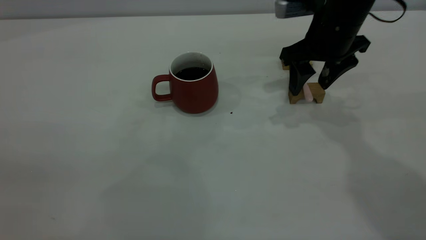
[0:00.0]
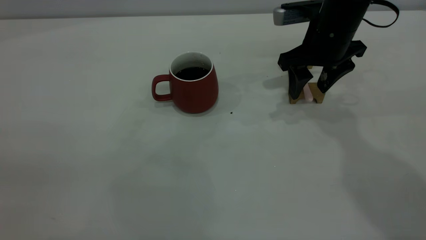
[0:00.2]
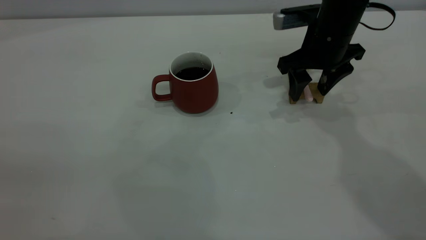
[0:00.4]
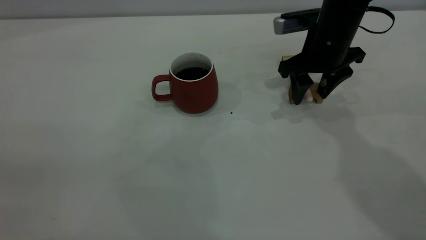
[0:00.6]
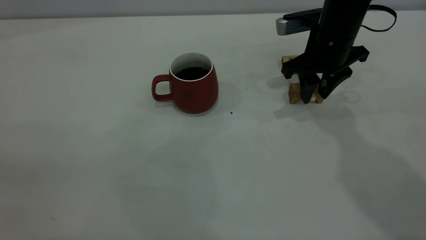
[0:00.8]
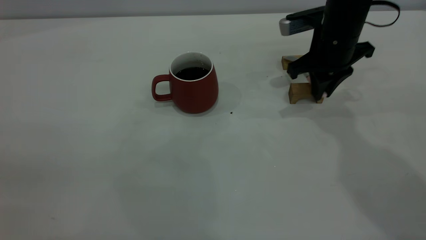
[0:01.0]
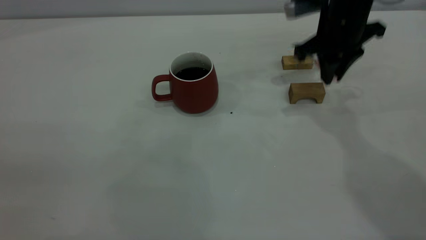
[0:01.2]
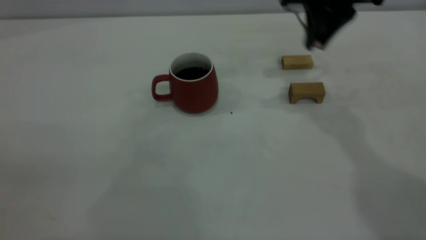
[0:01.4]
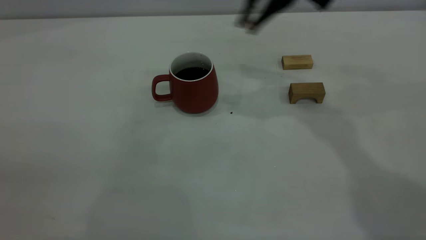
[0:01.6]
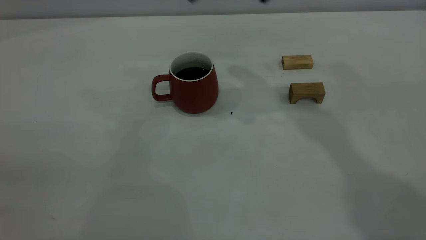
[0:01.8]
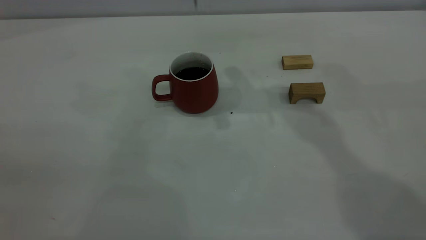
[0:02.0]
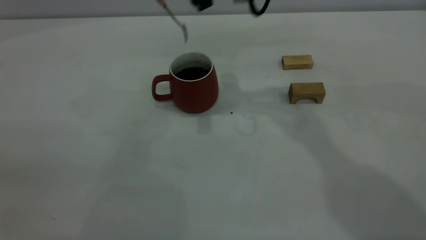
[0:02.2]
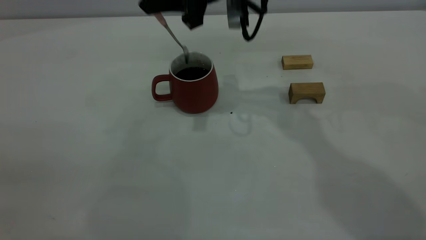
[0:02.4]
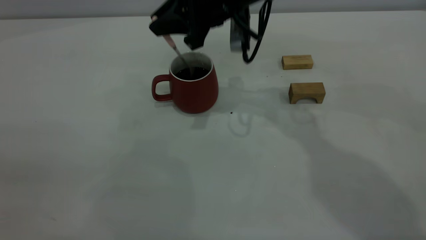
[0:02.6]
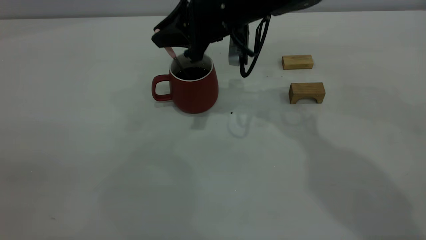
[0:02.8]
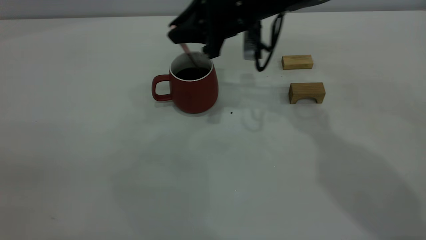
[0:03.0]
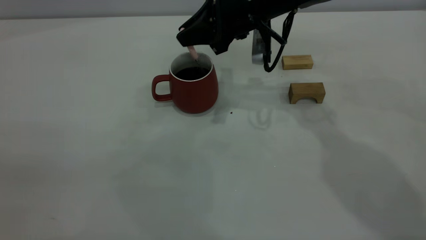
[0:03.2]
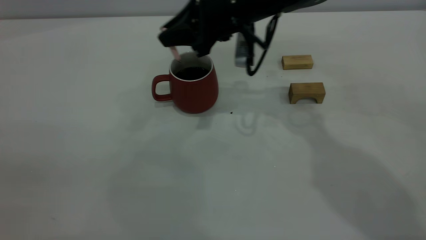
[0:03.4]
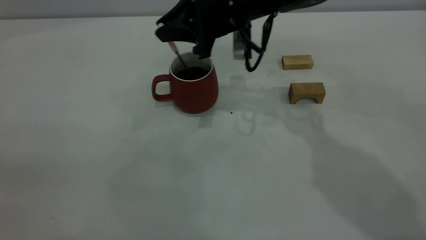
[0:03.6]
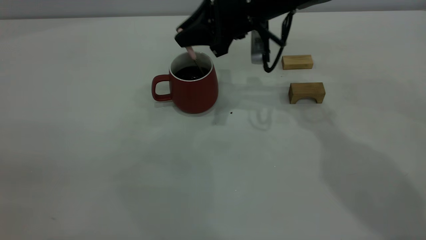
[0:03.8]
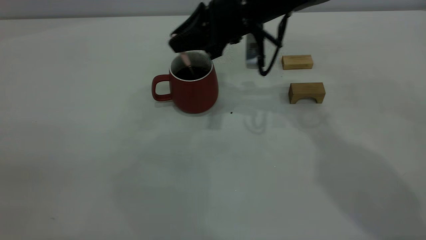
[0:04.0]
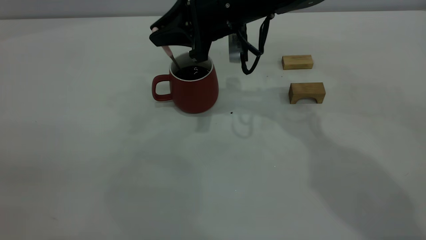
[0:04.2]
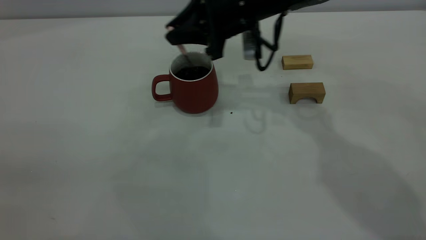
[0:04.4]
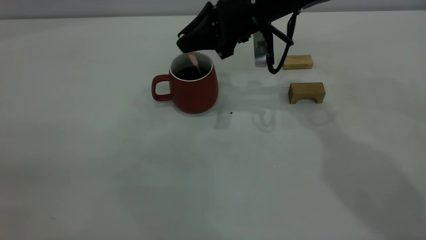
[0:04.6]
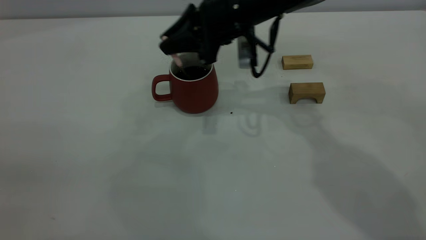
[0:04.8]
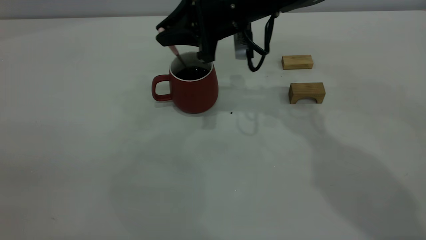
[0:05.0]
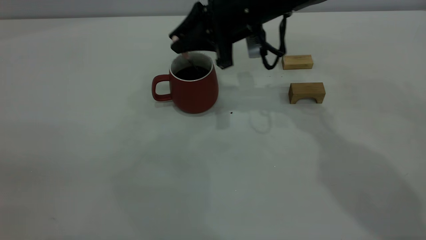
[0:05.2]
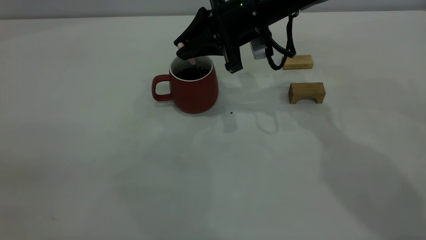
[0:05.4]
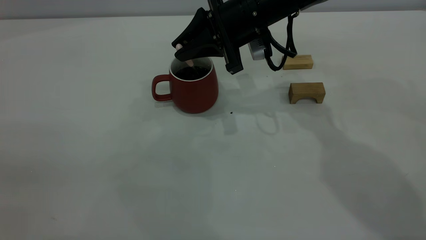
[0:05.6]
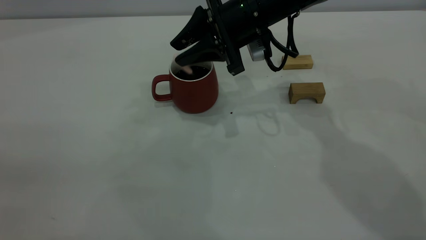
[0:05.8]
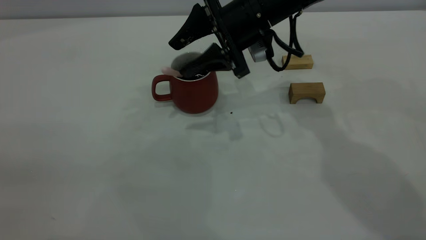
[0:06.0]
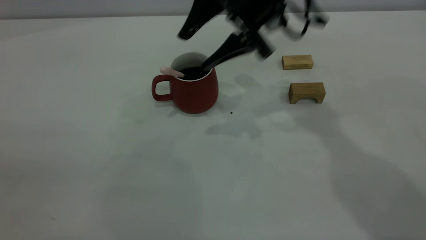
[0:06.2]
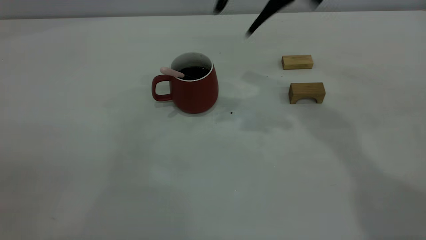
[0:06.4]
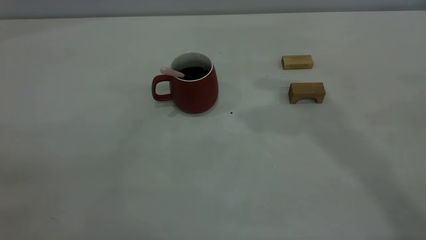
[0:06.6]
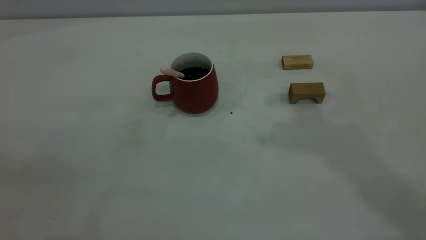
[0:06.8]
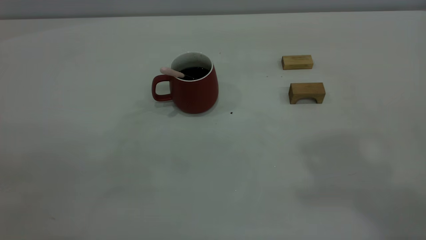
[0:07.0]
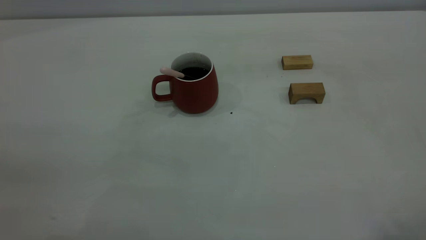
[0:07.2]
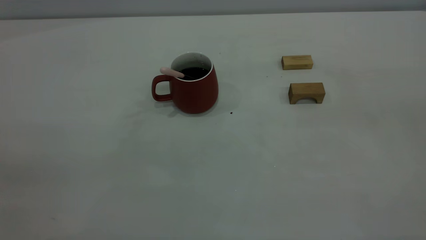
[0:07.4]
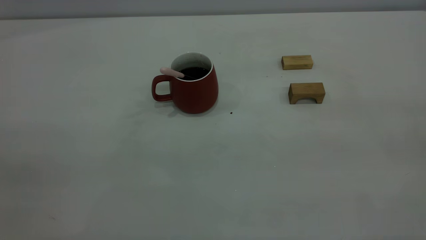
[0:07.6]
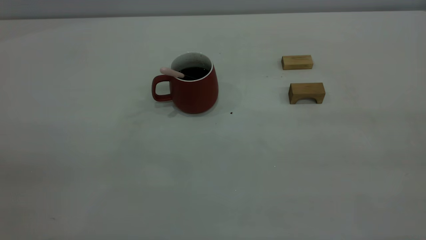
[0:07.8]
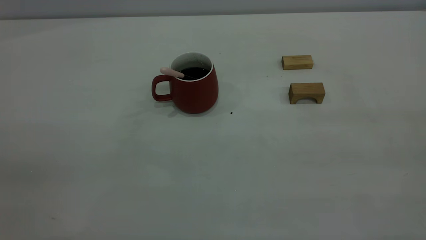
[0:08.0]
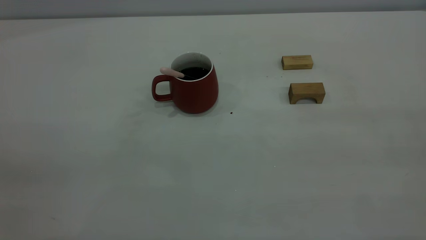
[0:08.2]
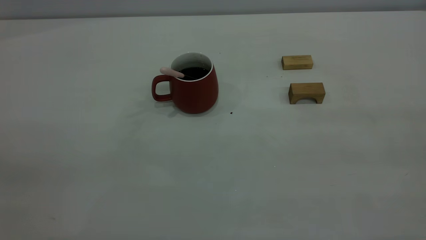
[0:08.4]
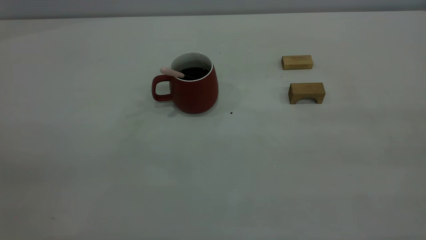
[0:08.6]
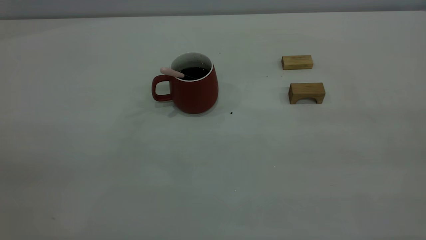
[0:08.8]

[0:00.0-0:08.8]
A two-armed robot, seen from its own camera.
Step, 1.2 to 6.2 s: Stir the coffee in the cup.
0.0 to 1.4 s: The right gripper goes some 10 cm upward, and closes up.
1.4 to 3.0 s: The right gripper is displaced to the left and downward by roughly 10 cm.
3.0 to 4.4 s: The grippers make only small movements.
4.4 to 5.8 s: The right gripper opens.
5.8 to 7.4 s: The right gripper heads backward, upward and to the right, covering approximately 50 cm, and opens and closes again.

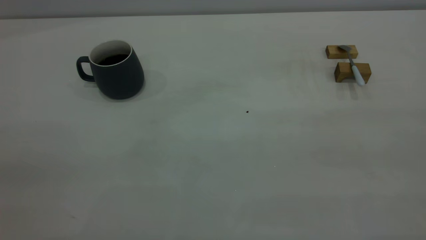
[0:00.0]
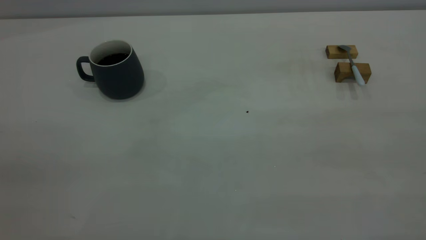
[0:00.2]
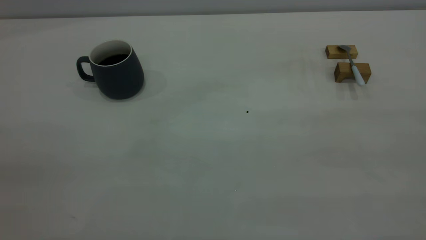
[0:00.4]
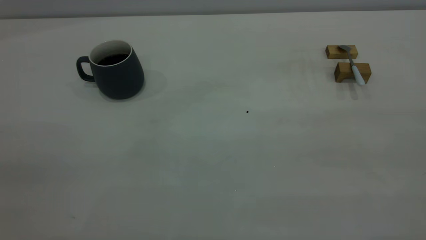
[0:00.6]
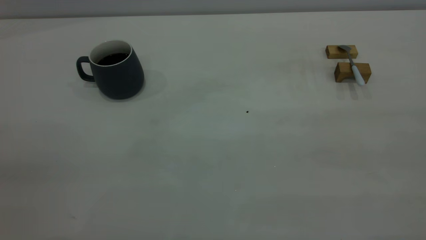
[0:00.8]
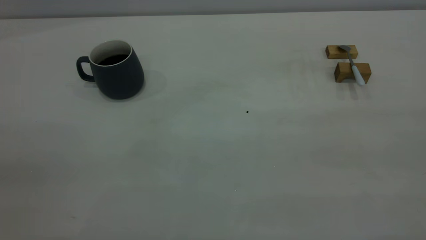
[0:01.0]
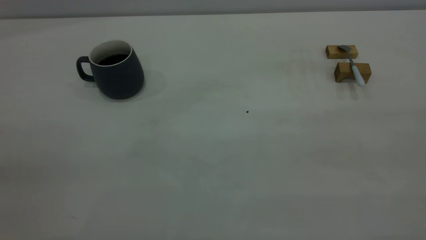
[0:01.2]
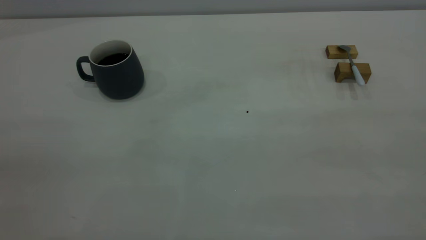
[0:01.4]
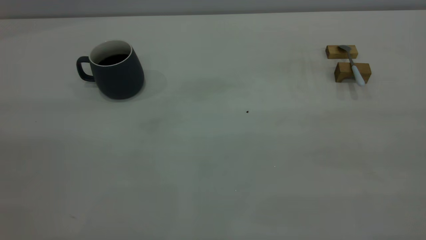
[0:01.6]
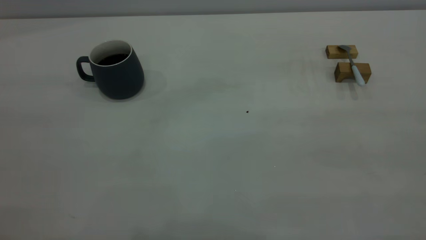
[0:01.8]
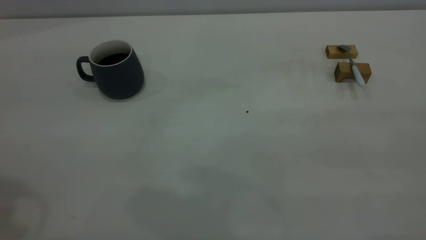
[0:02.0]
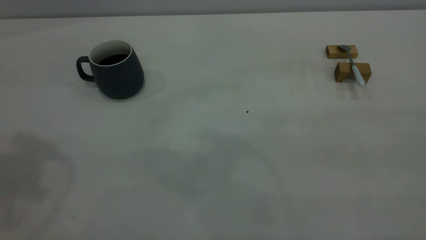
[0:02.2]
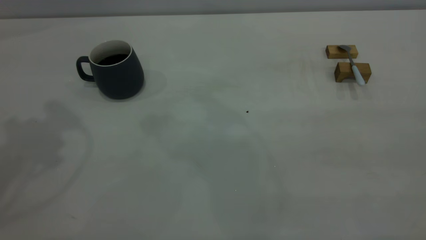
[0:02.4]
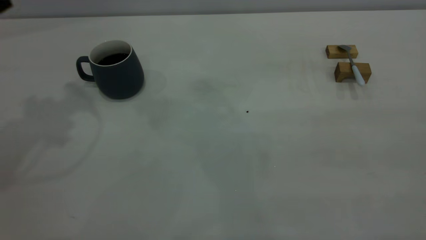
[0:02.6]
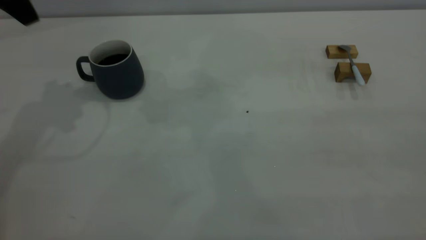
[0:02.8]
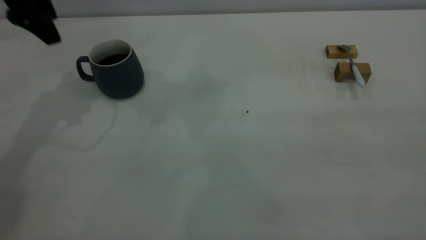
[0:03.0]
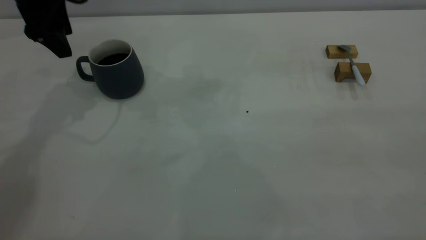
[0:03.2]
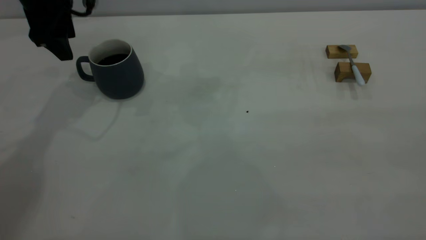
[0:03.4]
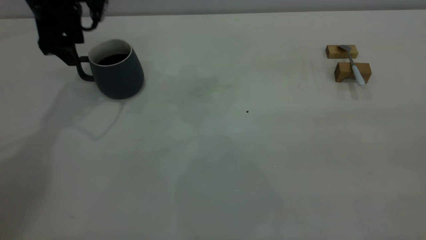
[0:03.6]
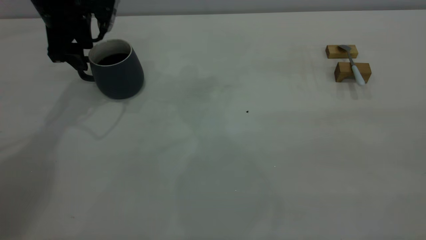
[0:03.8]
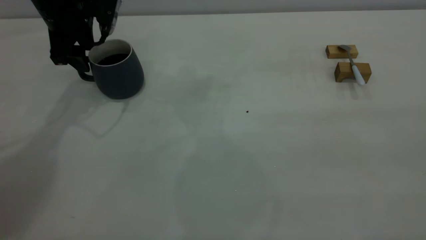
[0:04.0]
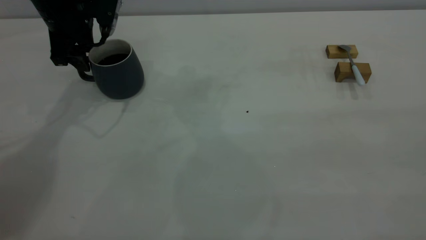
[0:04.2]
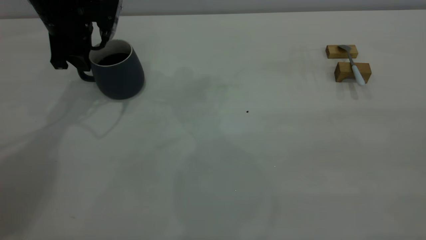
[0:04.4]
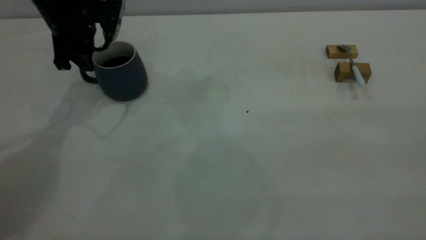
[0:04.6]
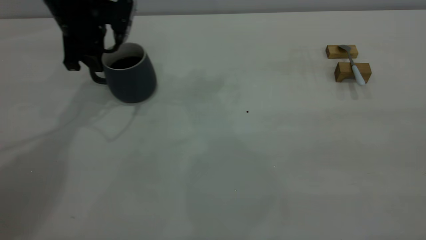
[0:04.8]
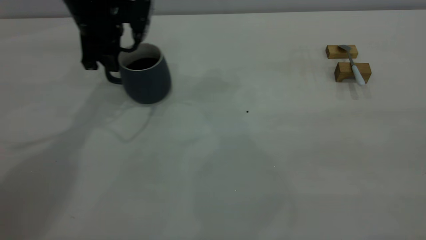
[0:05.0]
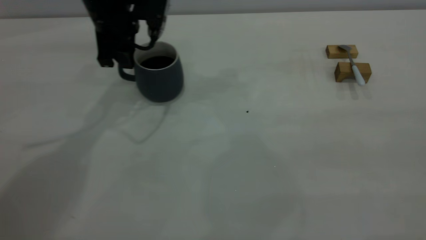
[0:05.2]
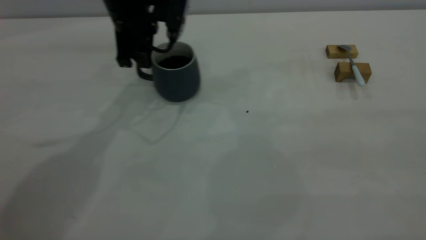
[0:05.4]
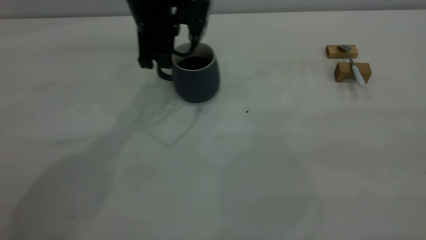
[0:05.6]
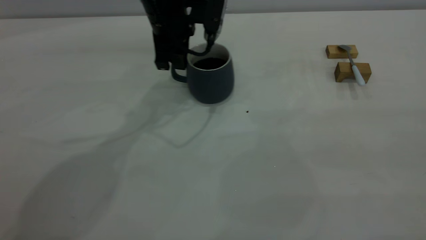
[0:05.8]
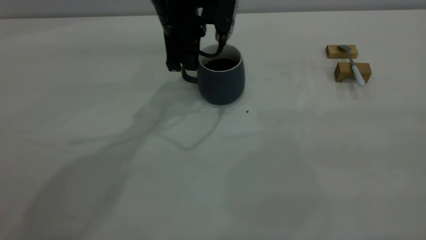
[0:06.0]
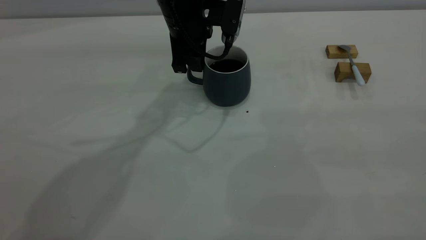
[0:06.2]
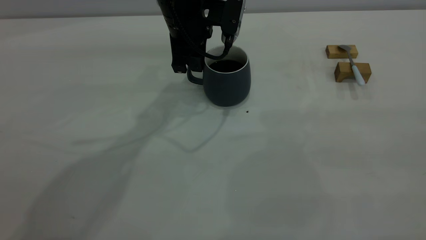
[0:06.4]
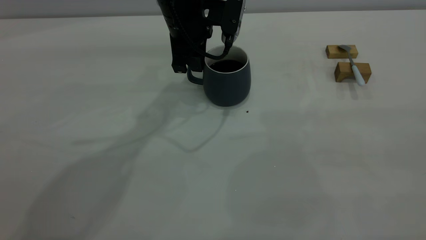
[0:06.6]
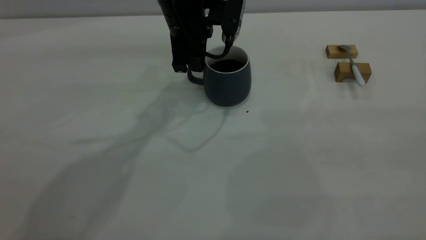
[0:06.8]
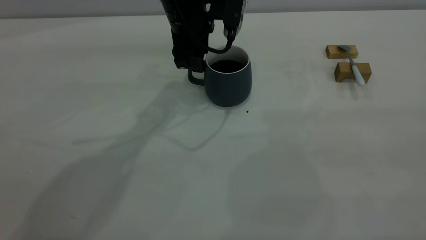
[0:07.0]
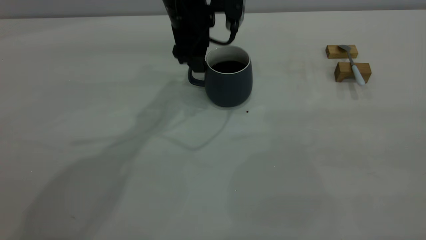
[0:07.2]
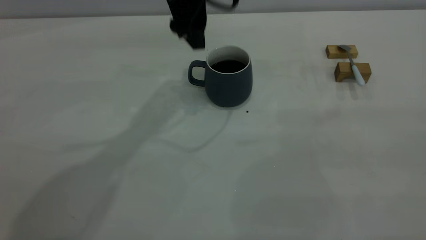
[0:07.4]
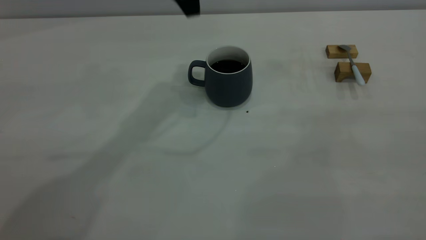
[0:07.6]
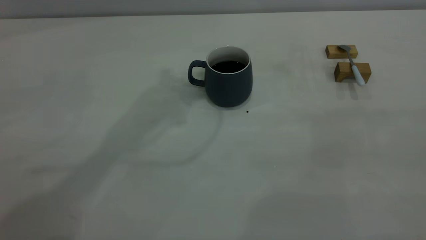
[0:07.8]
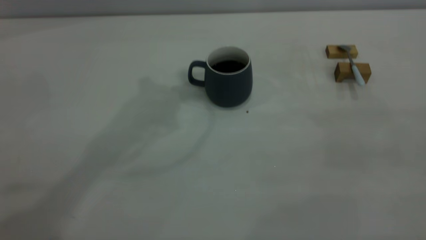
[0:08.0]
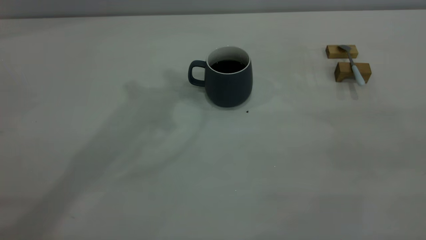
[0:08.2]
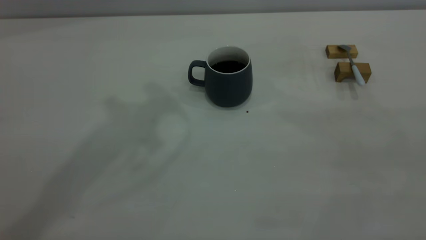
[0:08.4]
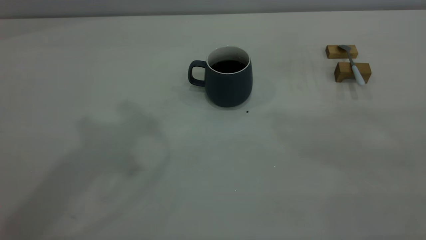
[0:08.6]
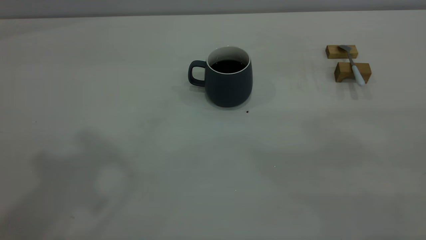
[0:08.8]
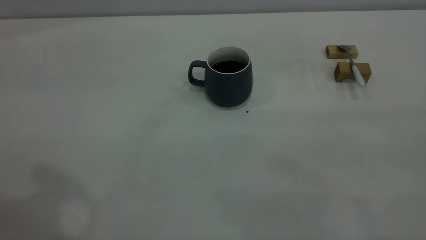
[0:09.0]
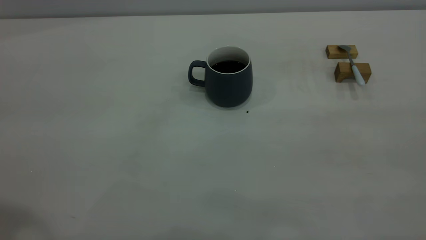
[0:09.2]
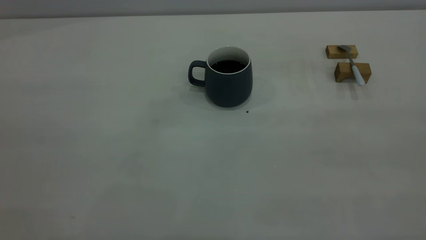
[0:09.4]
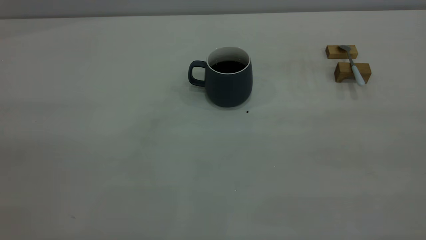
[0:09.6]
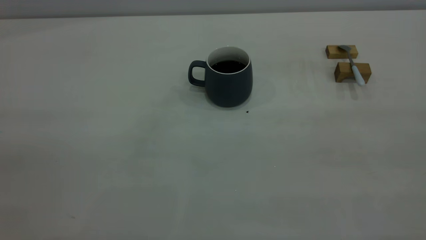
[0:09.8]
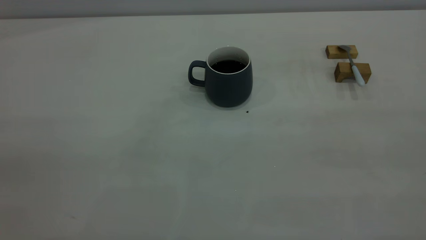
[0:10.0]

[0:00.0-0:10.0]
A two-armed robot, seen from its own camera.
Step, 0.0 to 7.4 s: Move the cup with coffee to the center of view.
1.4 to 2.8 s: The left gripper is displaced forward by about 40 cm, and opens up.
2.8 to 4.2 s: The left gripper heads downward and forward, covering about 15 cm, and closes up.
4.2 to 5.8 s: The left gripper moves to the right, some 15 cm, and closes up.
5.8 to 7.2 s: The left gripper opens.
7.2 to 8.6 s: The left gripper heads upward and backward, covering roughly 35 cm, and closes up.
